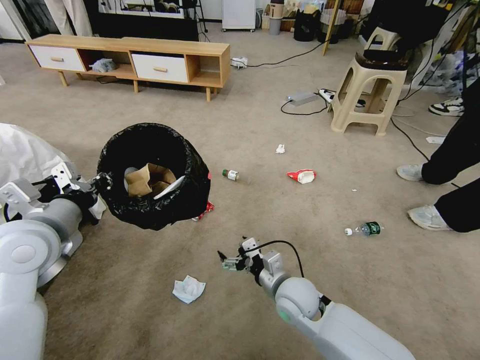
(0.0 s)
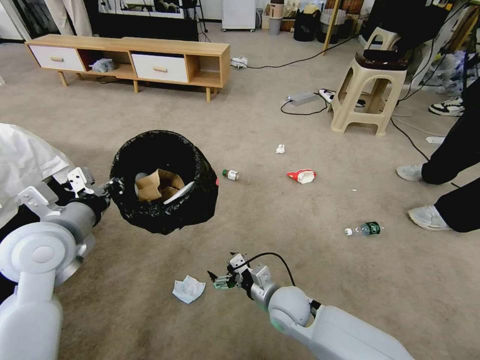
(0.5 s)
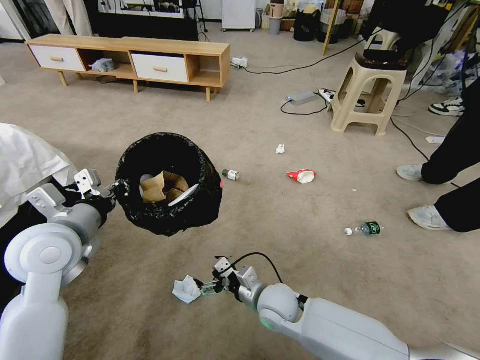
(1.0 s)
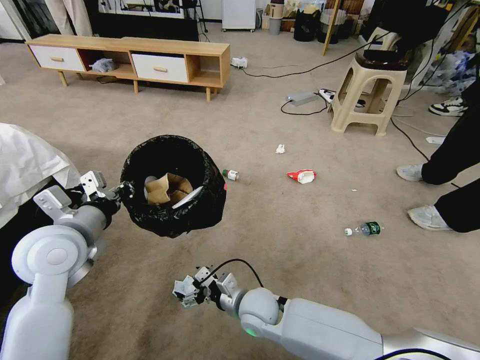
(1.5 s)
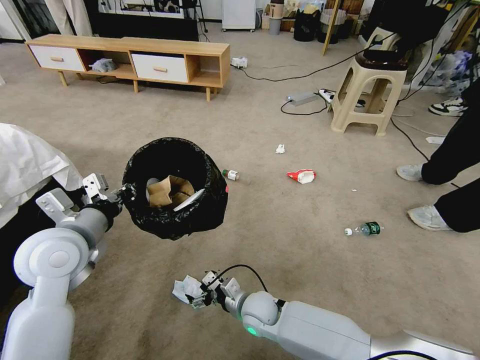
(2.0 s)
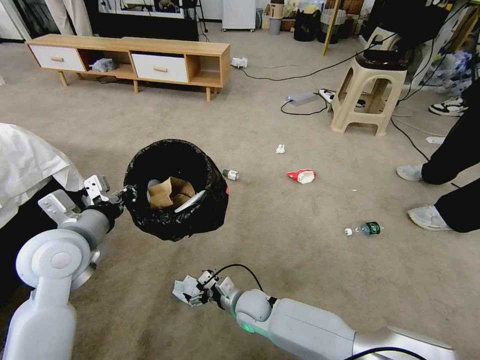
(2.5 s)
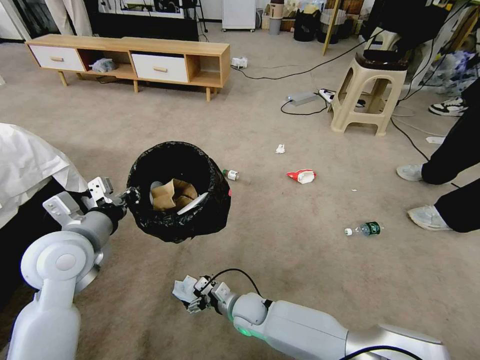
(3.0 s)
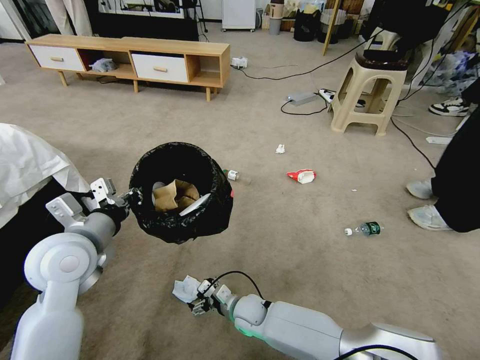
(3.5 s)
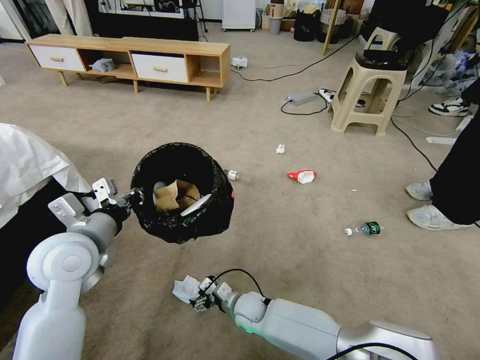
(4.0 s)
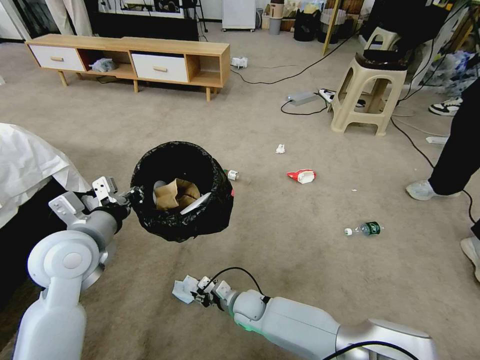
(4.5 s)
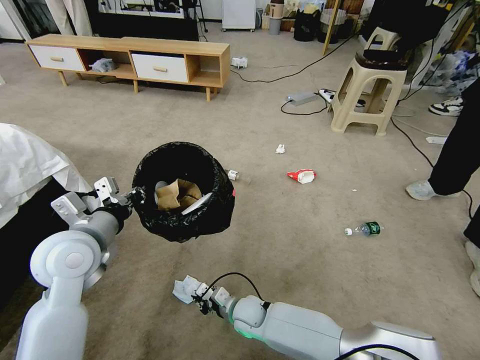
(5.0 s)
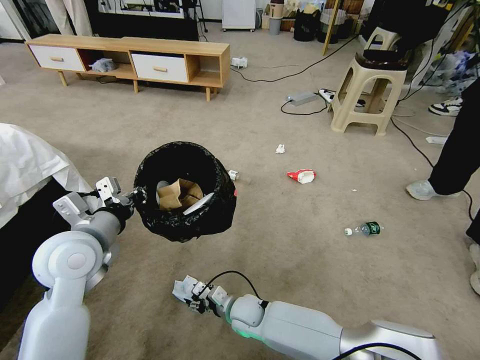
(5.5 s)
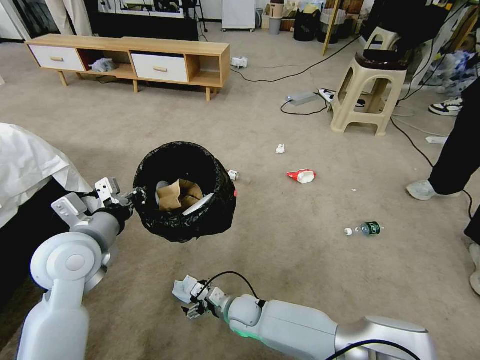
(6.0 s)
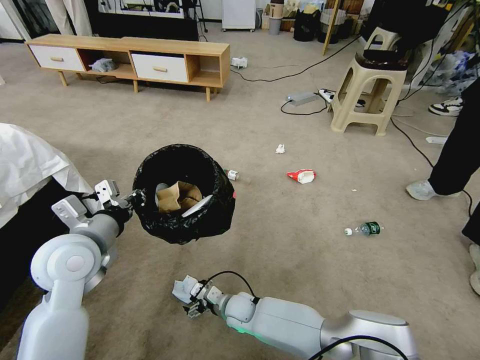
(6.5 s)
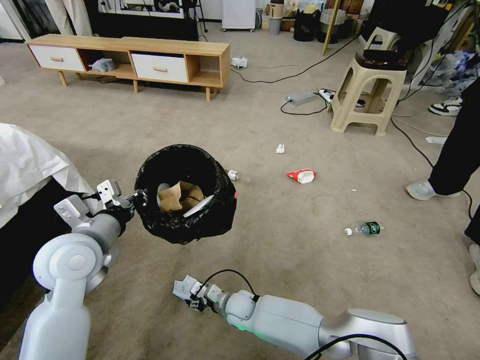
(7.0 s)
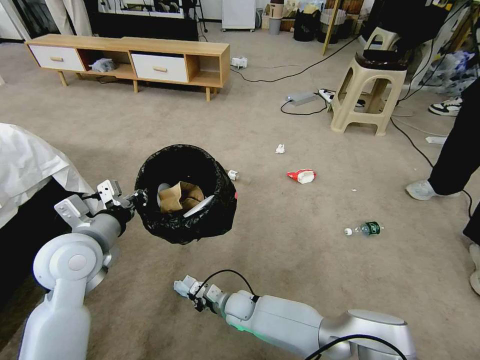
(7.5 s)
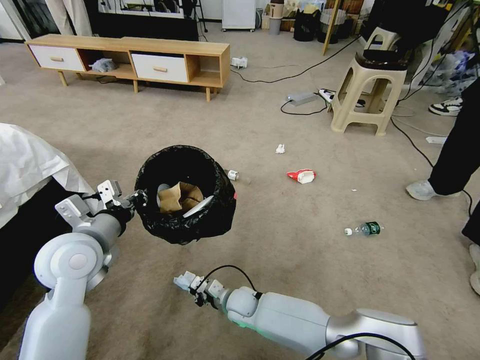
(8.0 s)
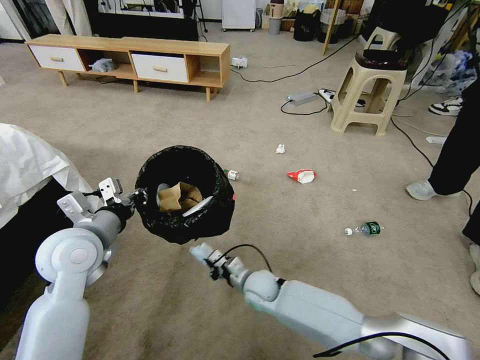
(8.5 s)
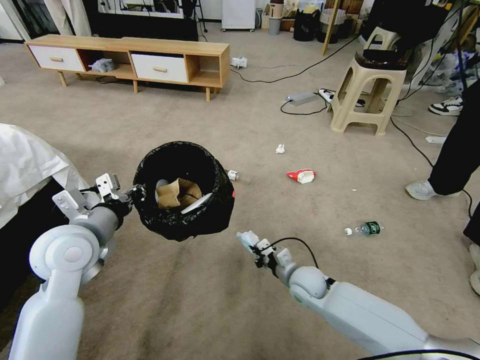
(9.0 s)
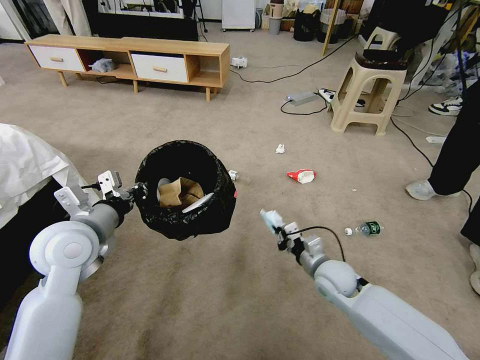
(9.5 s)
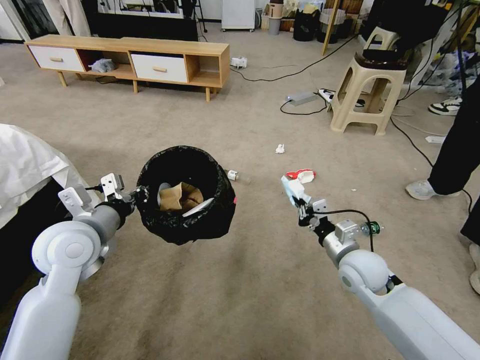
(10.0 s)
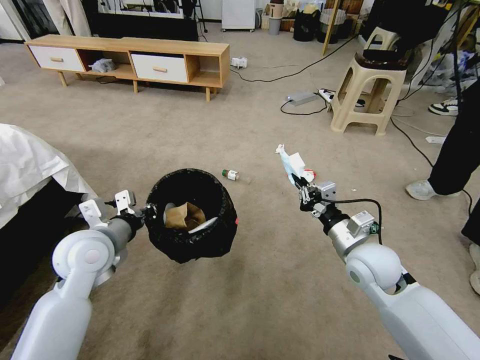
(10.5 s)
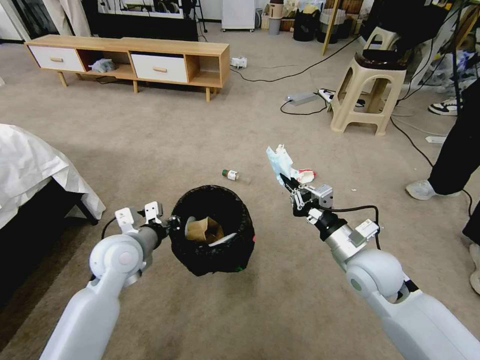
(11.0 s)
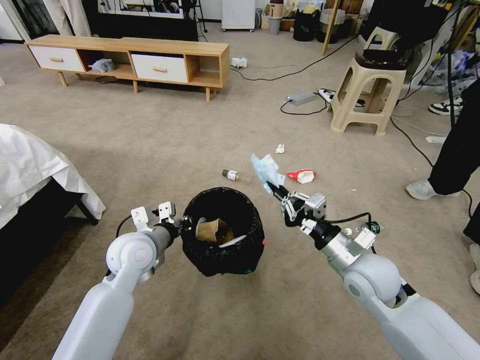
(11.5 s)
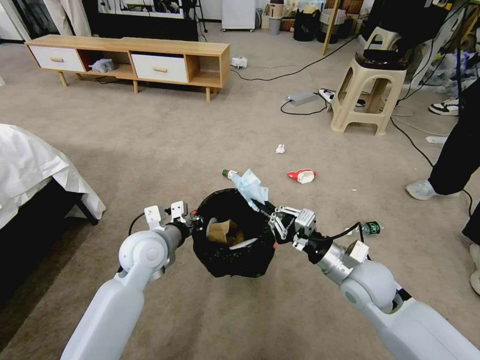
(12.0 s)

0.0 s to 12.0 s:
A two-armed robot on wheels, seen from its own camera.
Task of the whole recording: Pick up the trash bin and place the garbage on the floor into it.
0.0 to 2.0 s: The right gripper is displaced downward and to the left by about 10 cm.
2.0 to 4.0 s: The right gripper heads downward, covering approximately 5 cm.
4.0 to 6.0 s: The right gripper closes and opens again.
6.0 to 8.0 s: The right gripper closes its fingers.
8.0 to 10.0 s: The right gripper goes roughly 35 cm to the right and upward.
10.0 to 12.0 s: The right gripper ends up about 5 cm from where it was; the left gripper moves to the right and downward, approximately 15 cm.

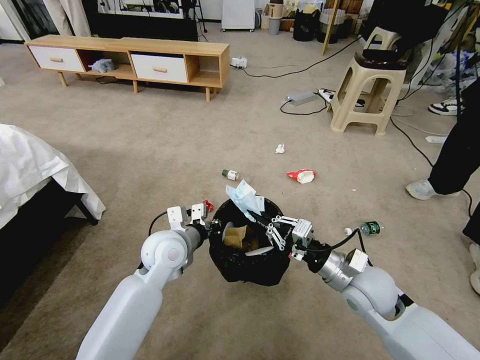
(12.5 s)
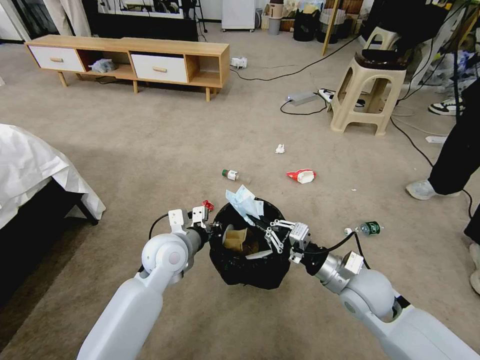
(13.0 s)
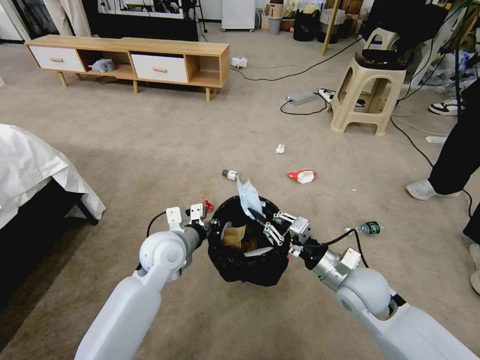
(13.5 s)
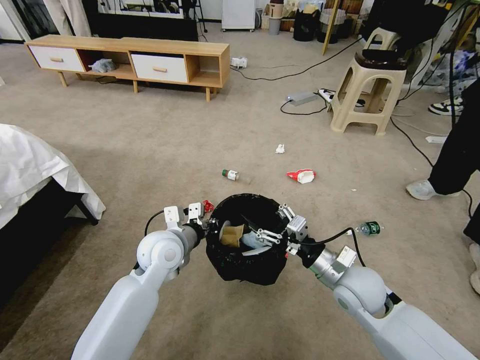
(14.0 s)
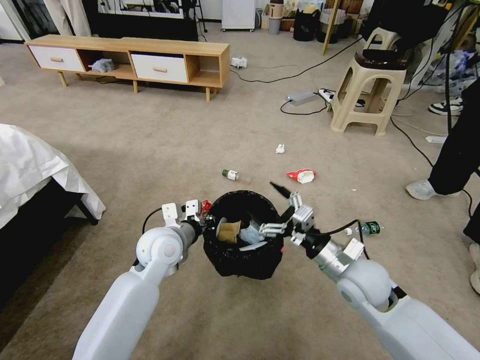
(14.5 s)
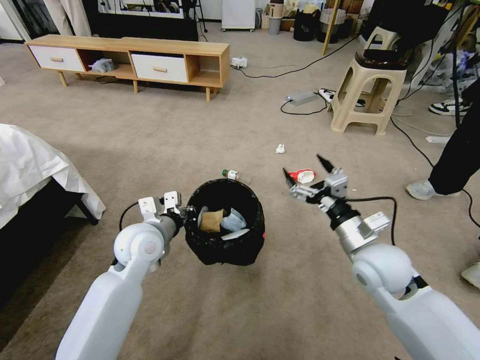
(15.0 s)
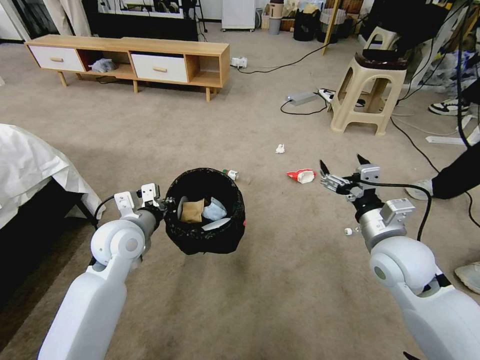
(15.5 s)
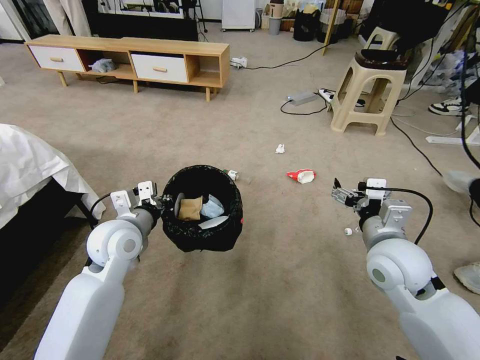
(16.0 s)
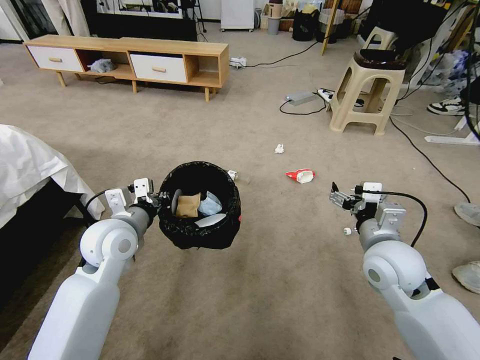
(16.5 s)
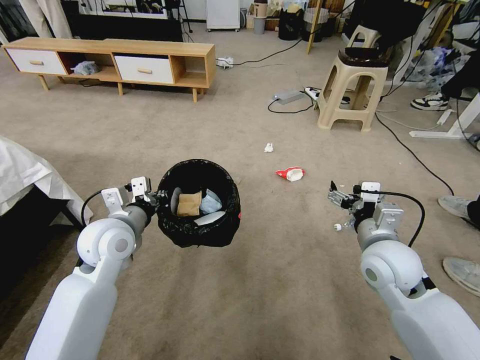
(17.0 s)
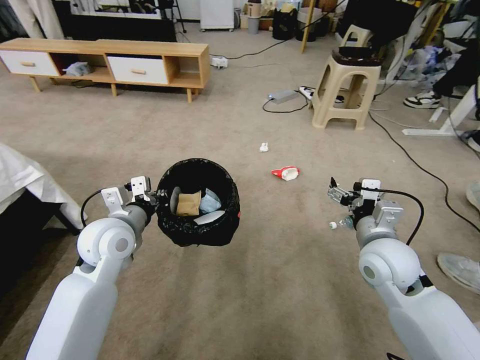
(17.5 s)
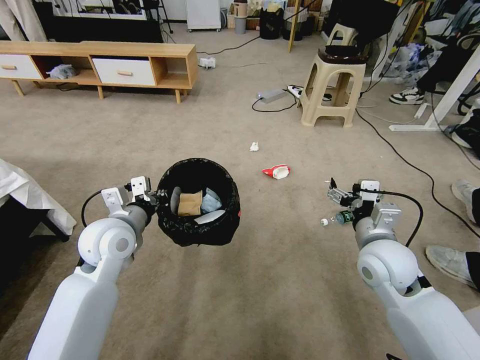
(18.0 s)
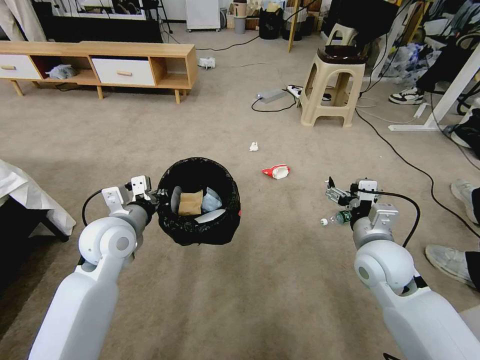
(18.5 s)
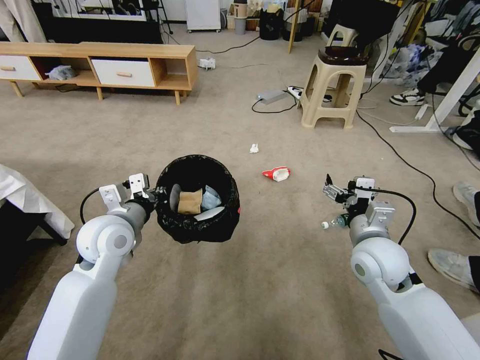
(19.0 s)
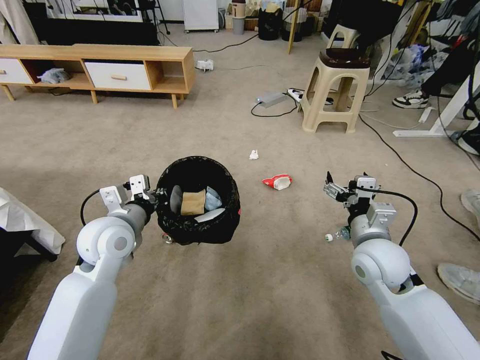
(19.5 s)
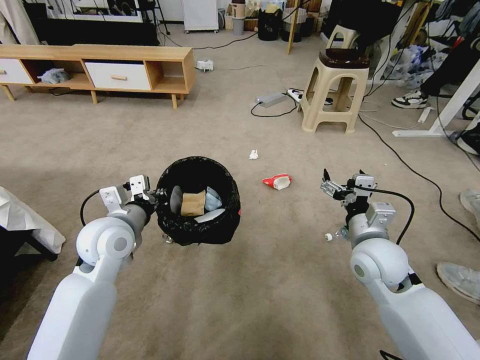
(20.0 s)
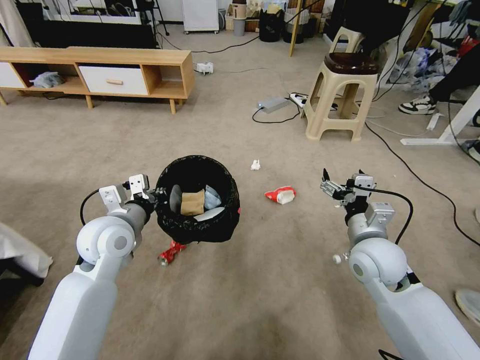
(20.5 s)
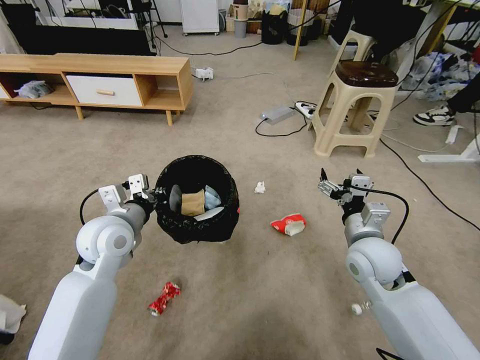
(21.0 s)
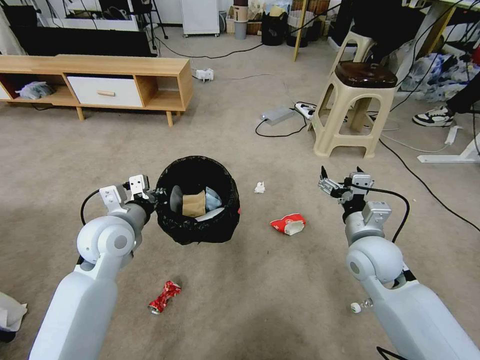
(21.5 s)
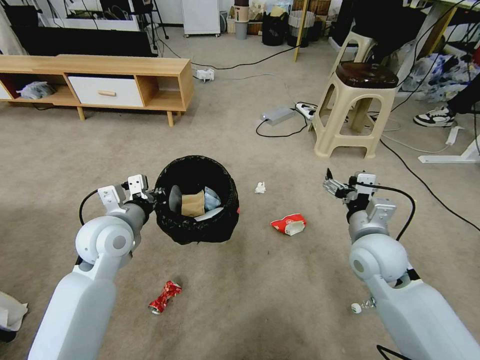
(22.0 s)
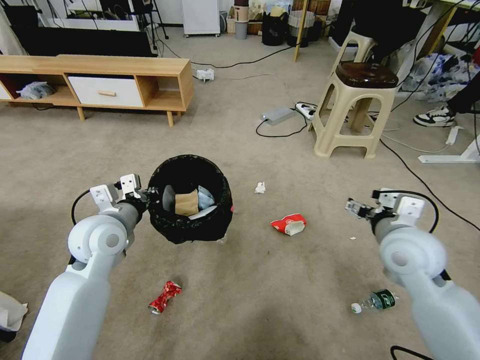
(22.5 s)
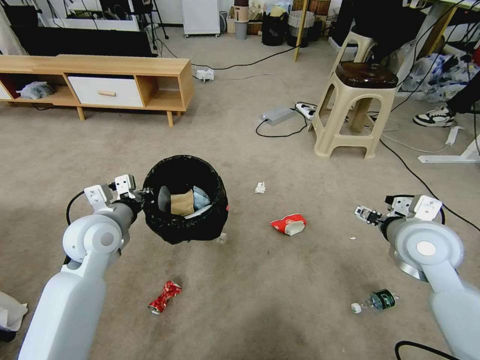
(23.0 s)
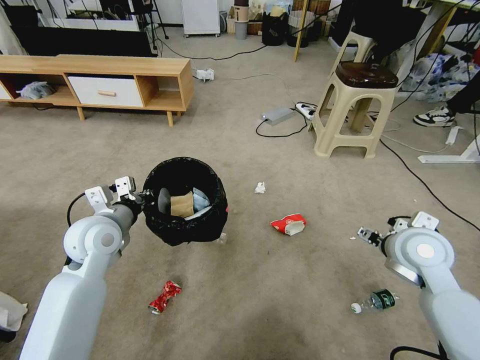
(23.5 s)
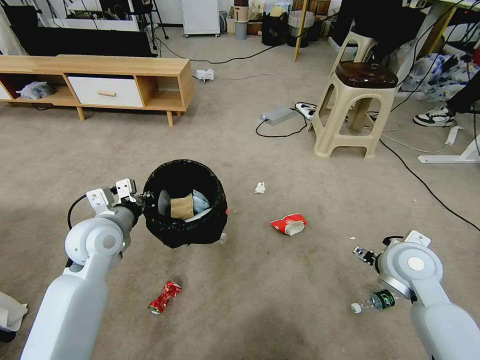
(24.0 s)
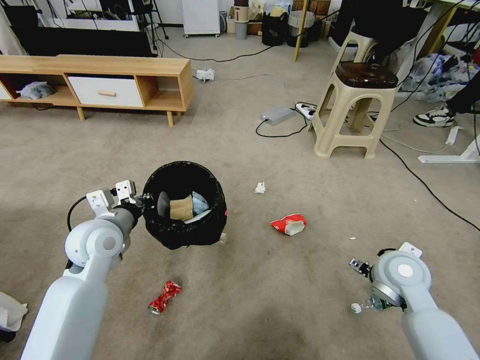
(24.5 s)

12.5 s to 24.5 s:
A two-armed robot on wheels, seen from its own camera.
Task of the whole recording: Pick up the trash bin and place the garbage on the floor into it.
12.5 to 14.5 s: The right gripper opens.
14.5 to 16.5 s: The left gripper is displaced to the left and upward by approximately 10 cm; the right gripper shifts about 5 cm upward.
20.5 to 22.5 s: The right gripper is displaced upward by some 5 cm.
22.5 to 24.5 s: The right gripper goes approximately 10 cm downward.

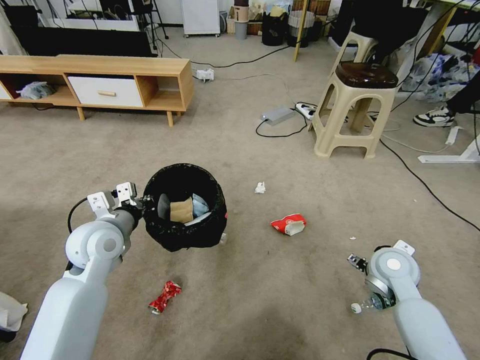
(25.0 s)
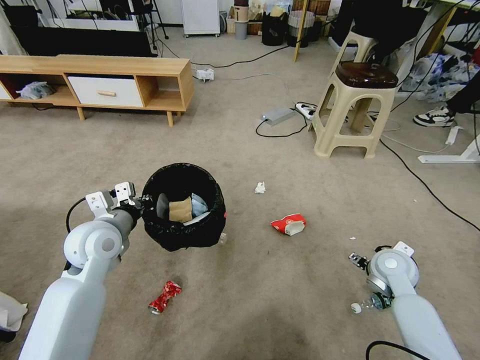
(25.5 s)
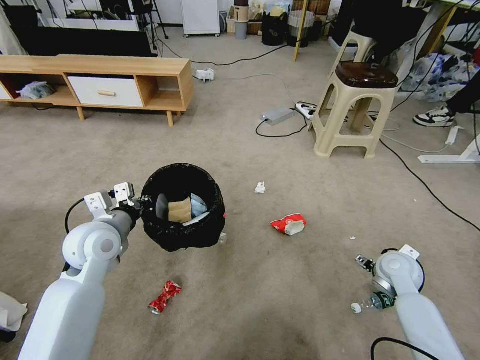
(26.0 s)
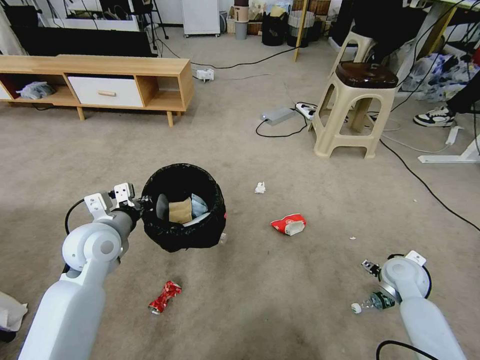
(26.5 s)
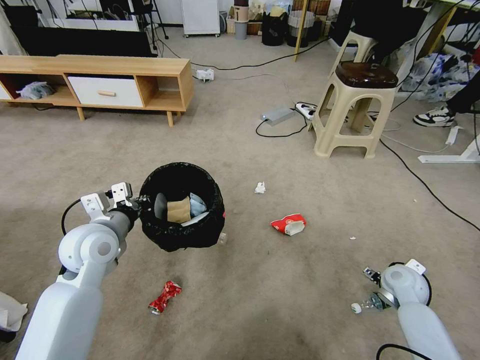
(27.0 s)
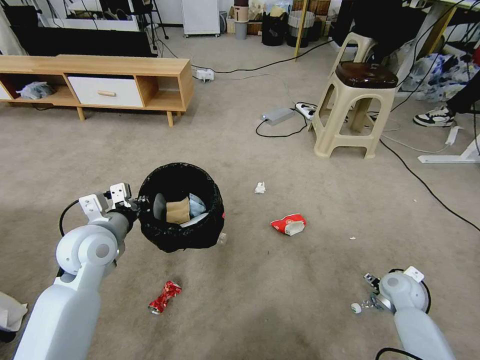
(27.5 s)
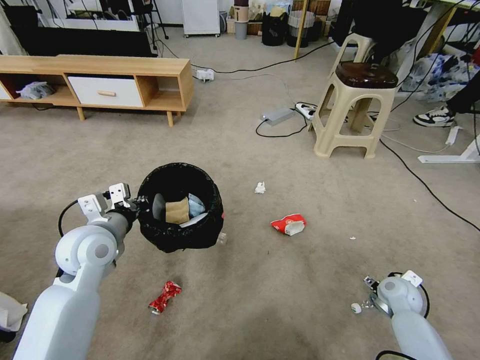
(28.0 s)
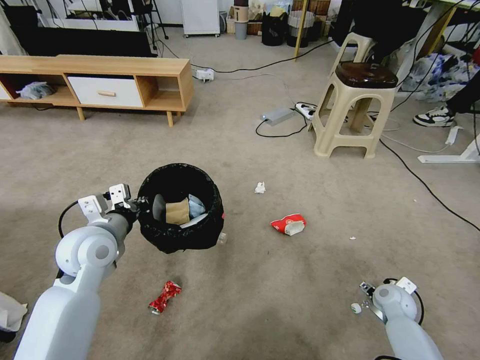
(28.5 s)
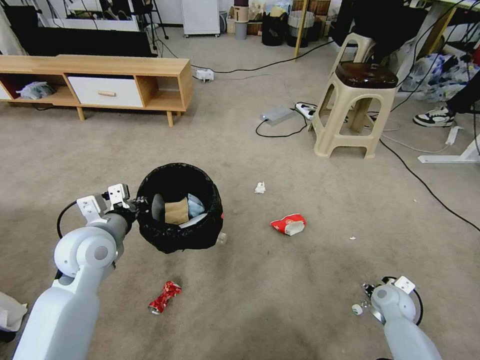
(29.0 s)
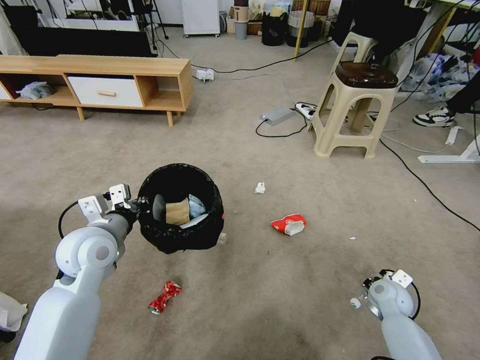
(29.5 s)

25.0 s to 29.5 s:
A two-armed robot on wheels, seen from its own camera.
Task of the whole recording: Pick up the trash bin and place the garbage on the floor into it.
25.0 to 27.0 s: The right gripper goes about 15 cm downward and to the right.
27.0 to 29.5 s: The right gripper shifts by roughly 5 cm, and closes.
